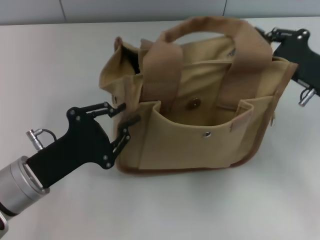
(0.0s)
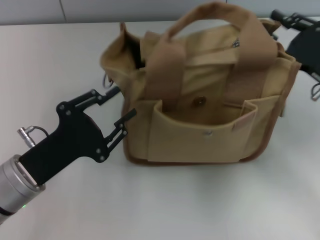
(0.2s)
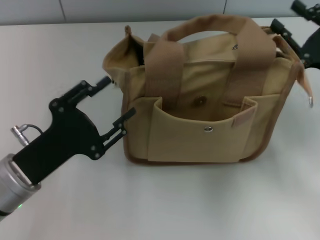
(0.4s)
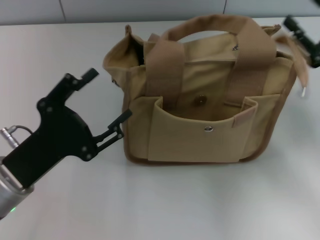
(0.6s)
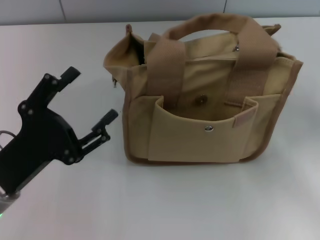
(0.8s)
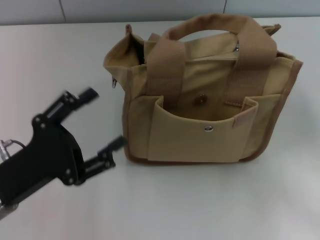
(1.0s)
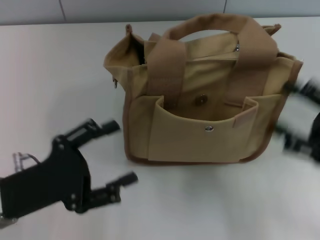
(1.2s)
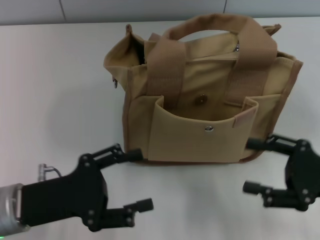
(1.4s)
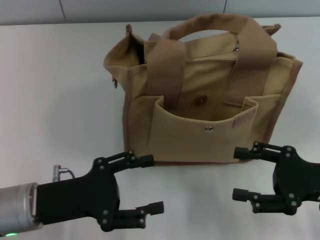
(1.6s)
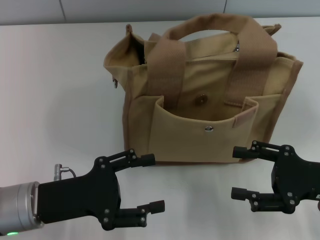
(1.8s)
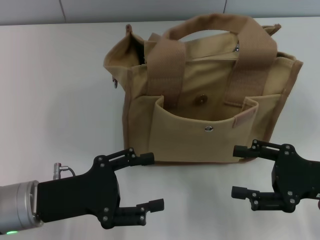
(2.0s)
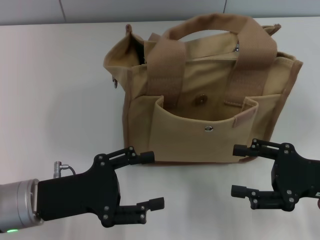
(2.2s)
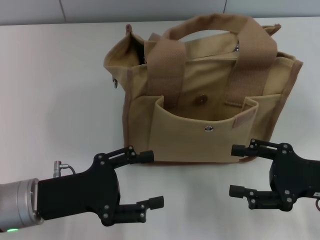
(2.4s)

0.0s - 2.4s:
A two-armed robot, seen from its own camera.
0.0s - 1.2s: The right gripper heads backward, covering roughly 10 cm, and opens up, while the left gripper opens its fingers.

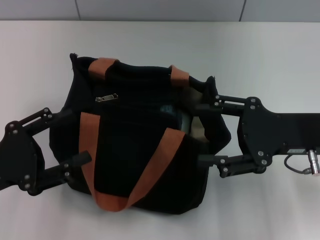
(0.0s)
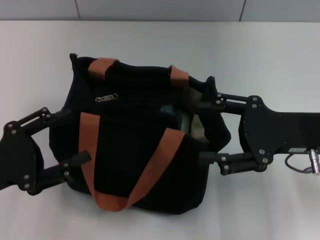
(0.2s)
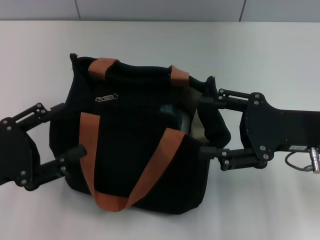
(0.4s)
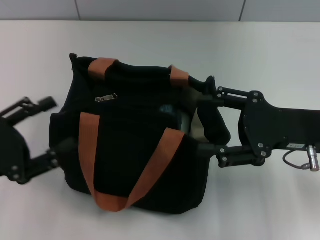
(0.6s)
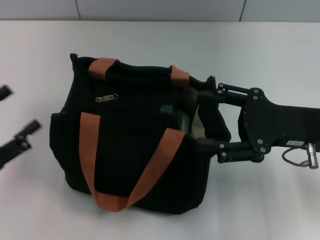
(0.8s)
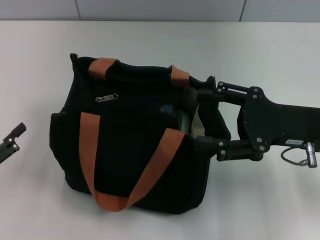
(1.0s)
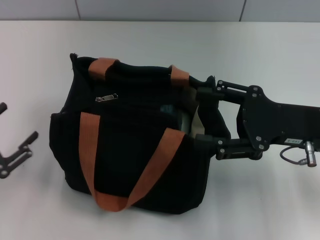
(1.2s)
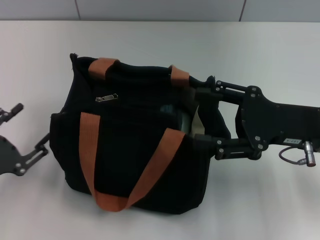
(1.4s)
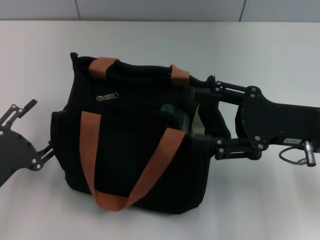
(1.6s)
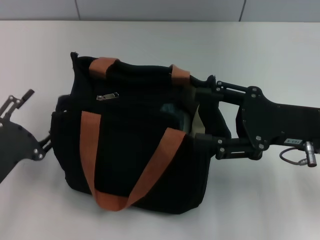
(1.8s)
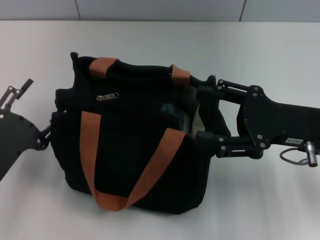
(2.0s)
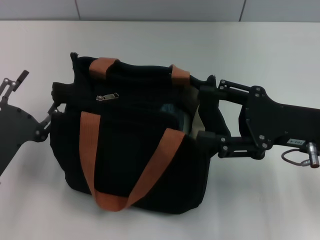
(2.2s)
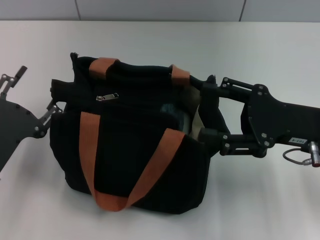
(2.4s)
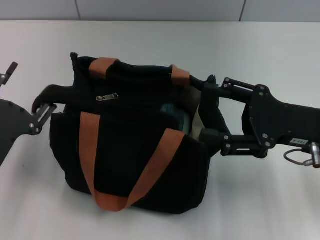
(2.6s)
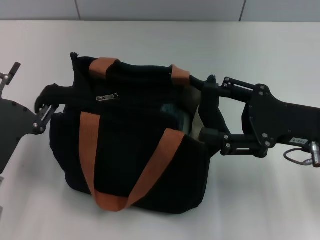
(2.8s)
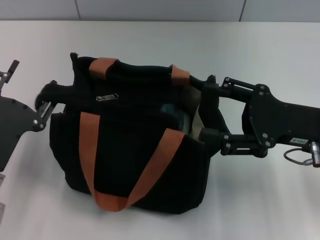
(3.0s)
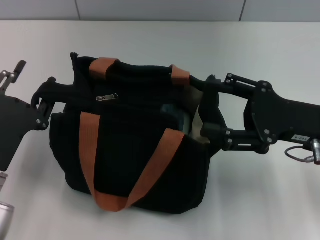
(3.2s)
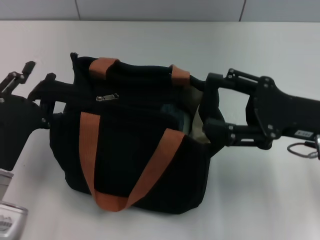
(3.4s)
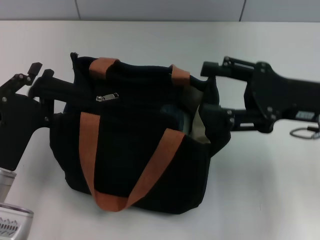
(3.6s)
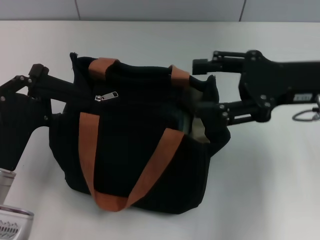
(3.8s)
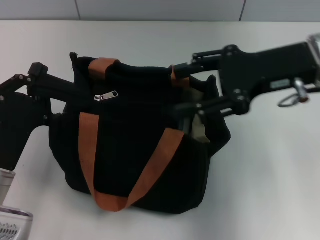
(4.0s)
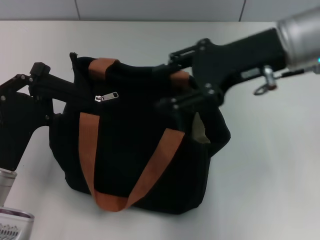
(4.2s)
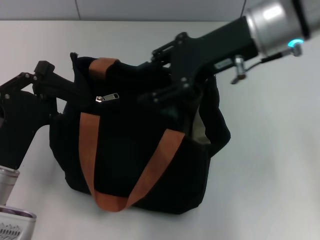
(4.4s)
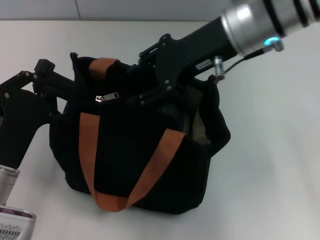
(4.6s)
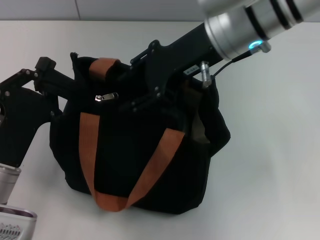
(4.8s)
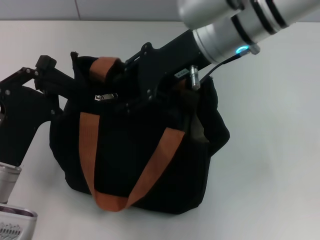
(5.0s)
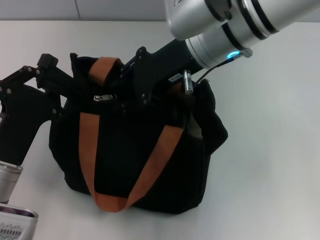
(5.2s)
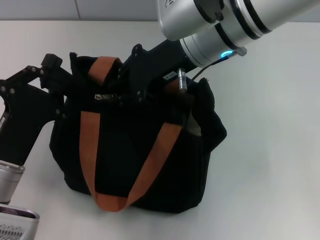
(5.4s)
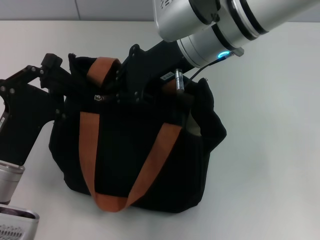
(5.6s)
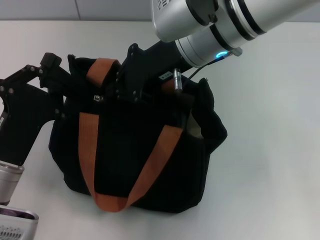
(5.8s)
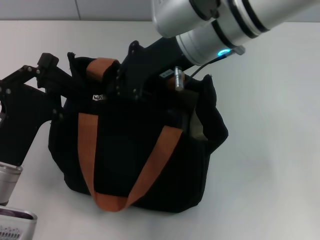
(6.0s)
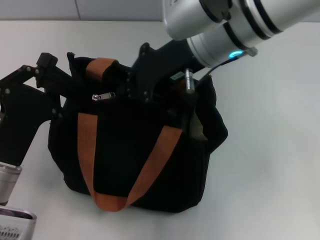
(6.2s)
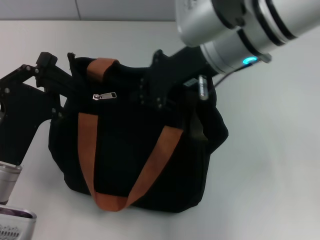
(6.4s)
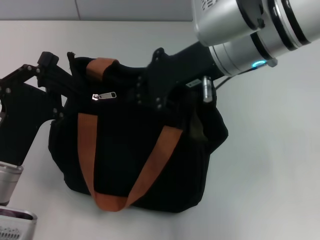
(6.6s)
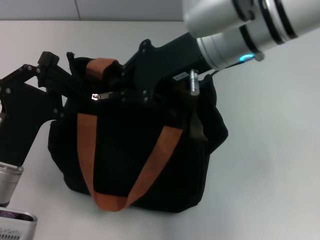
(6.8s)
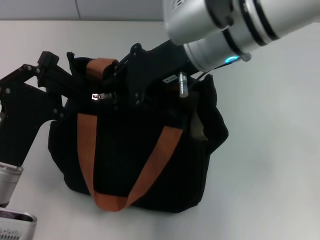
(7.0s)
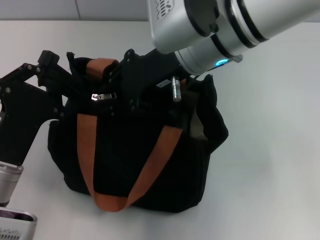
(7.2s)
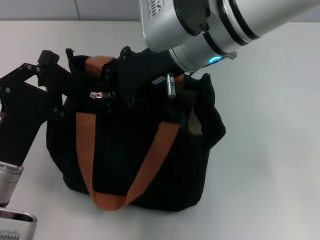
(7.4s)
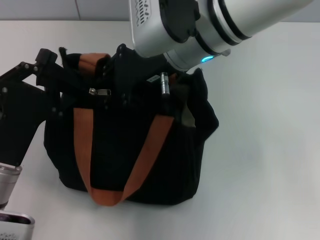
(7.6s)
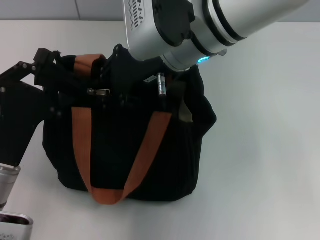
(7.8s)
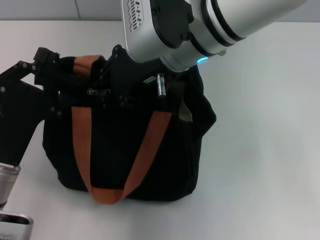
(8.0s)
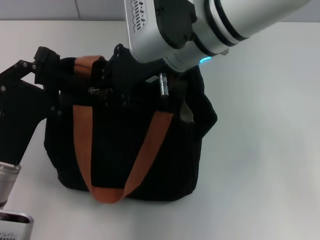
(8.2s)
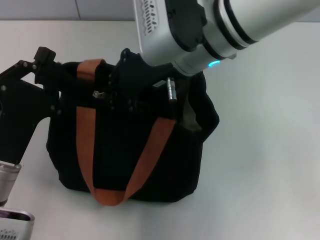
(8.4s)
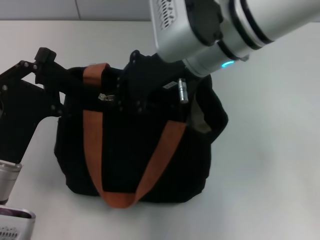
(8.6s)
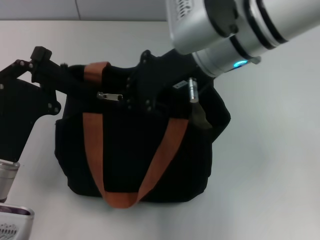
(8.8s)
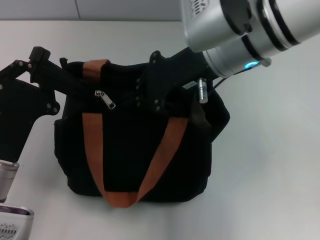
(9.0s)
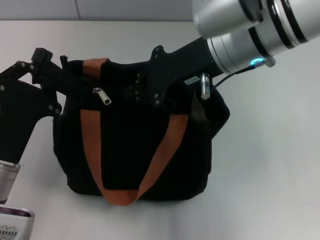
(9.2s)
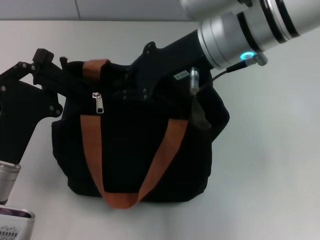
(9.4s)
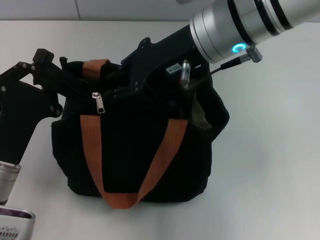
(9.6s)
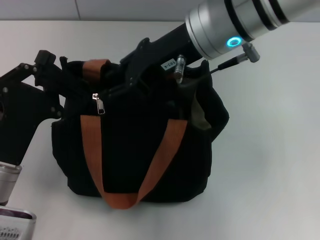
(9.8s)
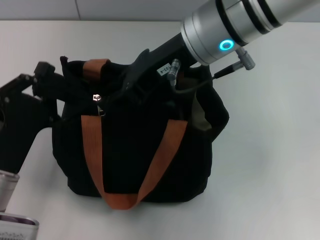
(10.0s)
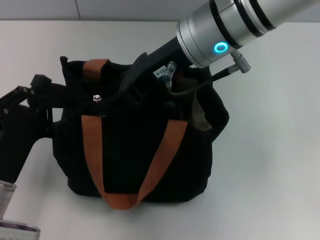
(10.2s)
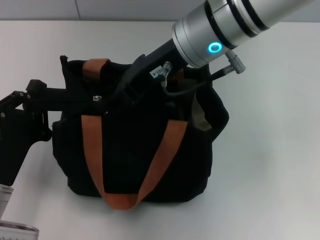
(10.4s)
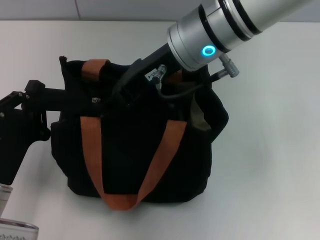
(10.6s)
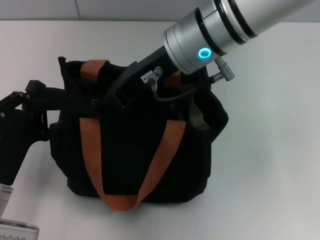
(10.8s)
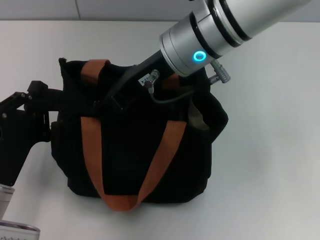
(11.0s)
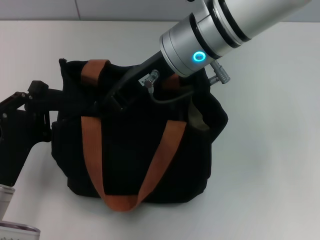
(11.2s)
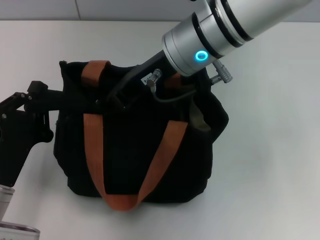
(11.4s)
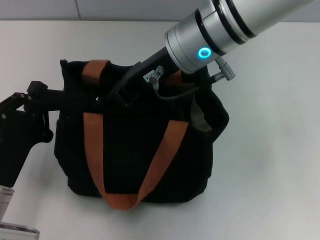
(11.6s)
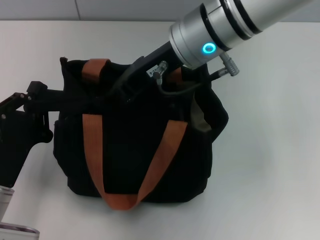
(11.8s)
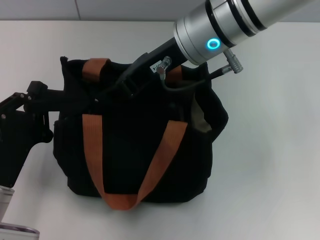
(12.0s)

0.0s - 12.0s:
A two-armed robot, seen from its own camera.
0.0s - 1.6s: The left gripper shifts approximately 5 cm downward.
1.6s - 3.0s: The grippers make only small movements.
3.0s - 4.4s: The left gripper closes. Meanwhile the right gripper shifts about 20 cm upward, to the left and forward.
4.4s - 6.0s: The right gripper heads to the left, covering about 5 cm, and closes its fingers.
6.0s - 7.6s: The right gripper opens its fingers.
9.0s - 10.4s: The right gripper opens its fingers.
10.4s - 12.0s: The grippers make only small movements.

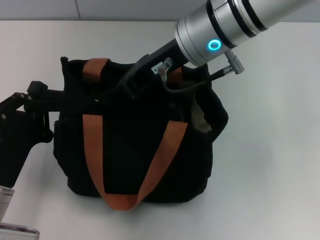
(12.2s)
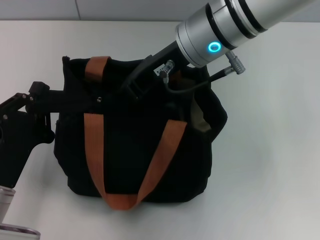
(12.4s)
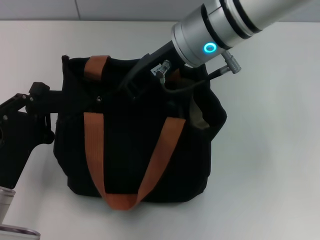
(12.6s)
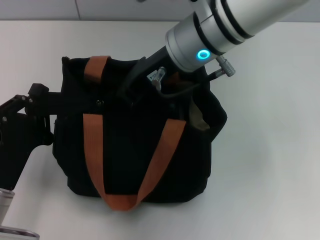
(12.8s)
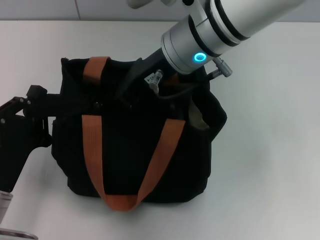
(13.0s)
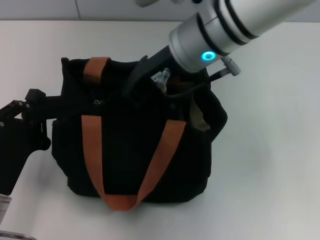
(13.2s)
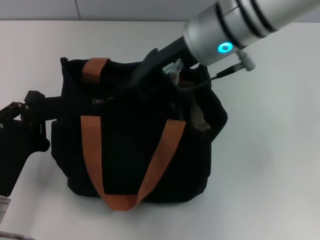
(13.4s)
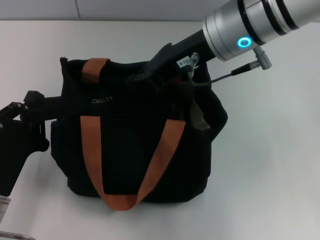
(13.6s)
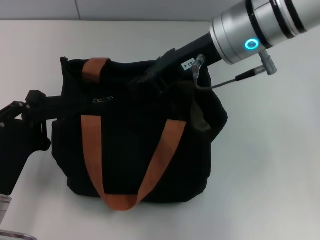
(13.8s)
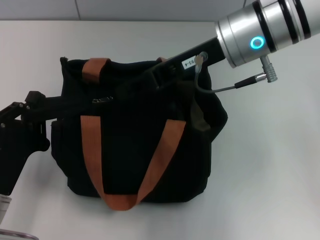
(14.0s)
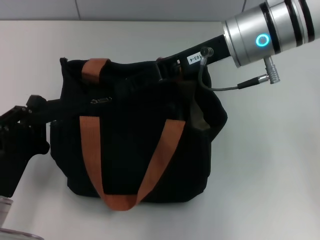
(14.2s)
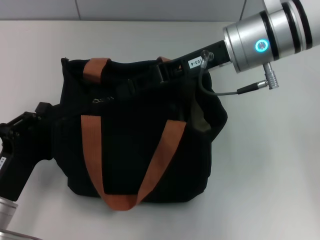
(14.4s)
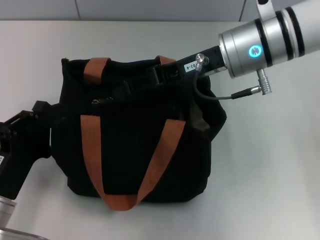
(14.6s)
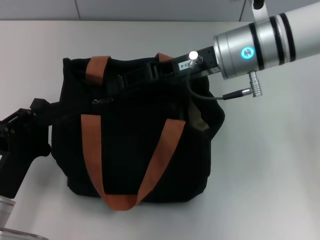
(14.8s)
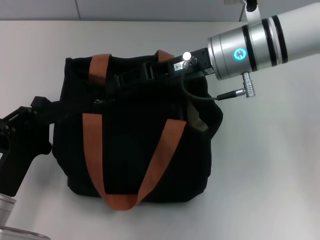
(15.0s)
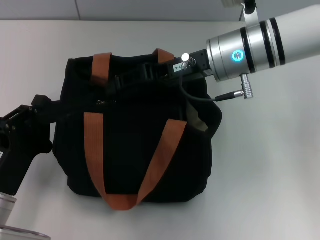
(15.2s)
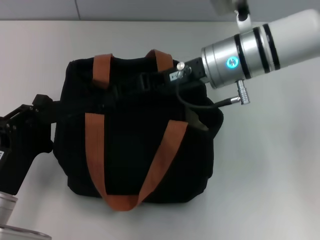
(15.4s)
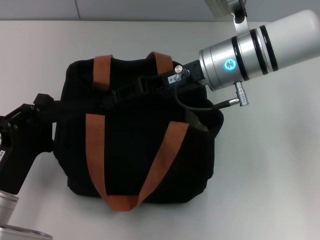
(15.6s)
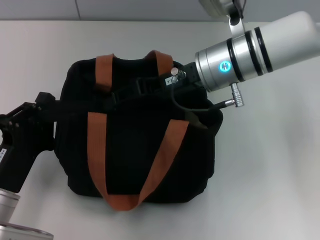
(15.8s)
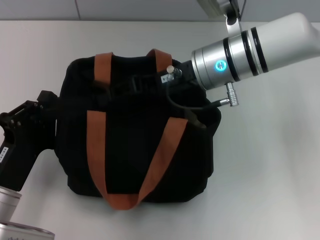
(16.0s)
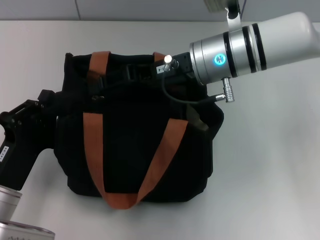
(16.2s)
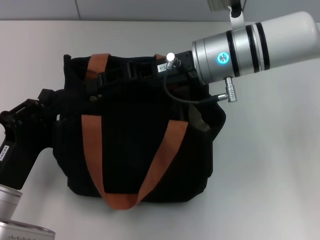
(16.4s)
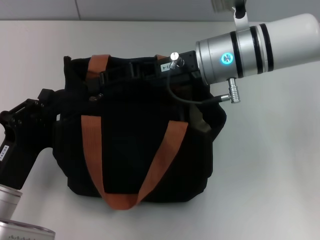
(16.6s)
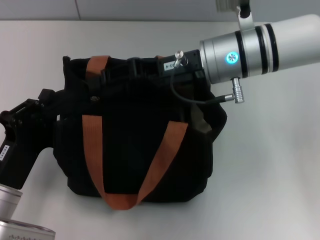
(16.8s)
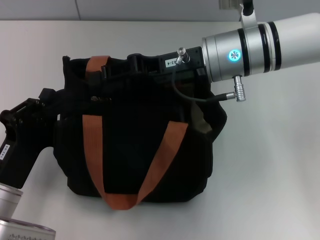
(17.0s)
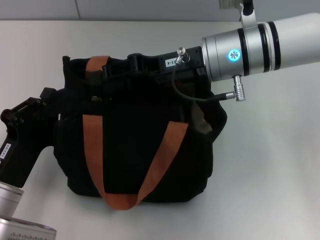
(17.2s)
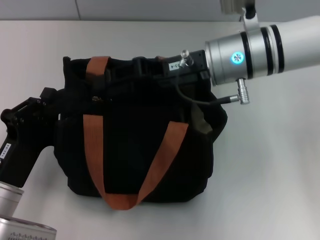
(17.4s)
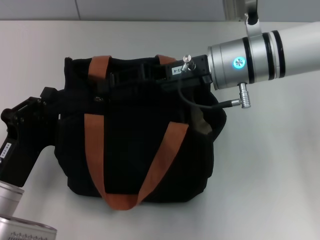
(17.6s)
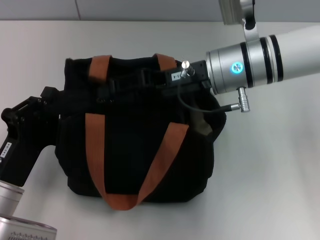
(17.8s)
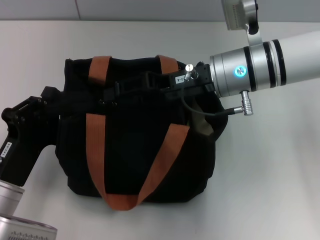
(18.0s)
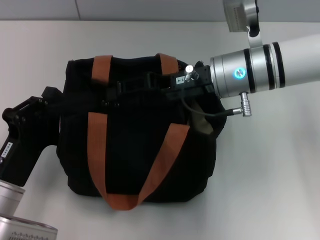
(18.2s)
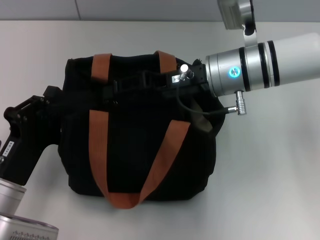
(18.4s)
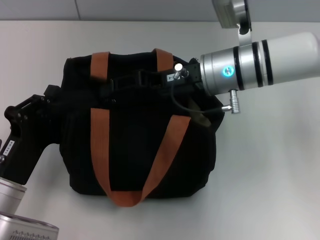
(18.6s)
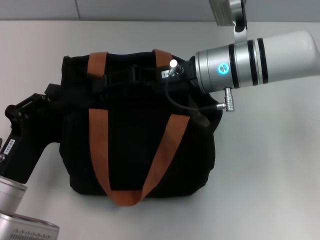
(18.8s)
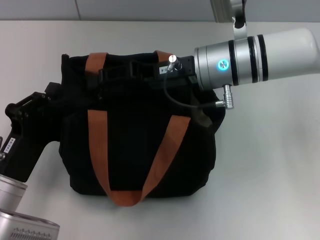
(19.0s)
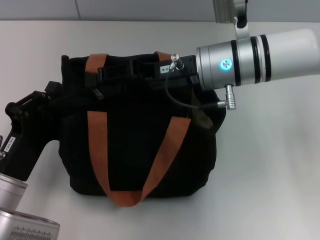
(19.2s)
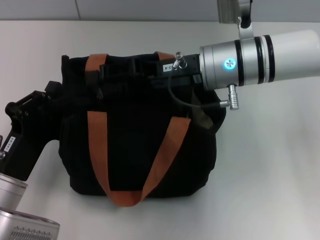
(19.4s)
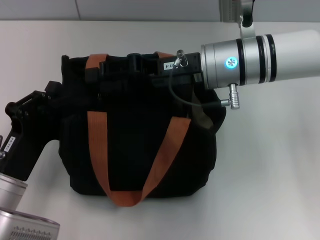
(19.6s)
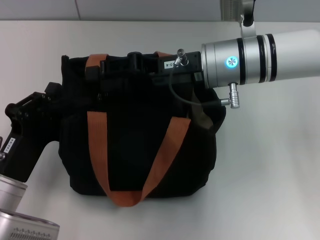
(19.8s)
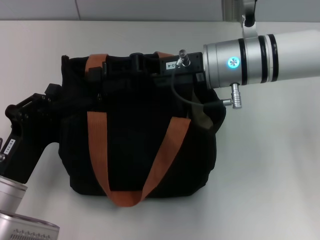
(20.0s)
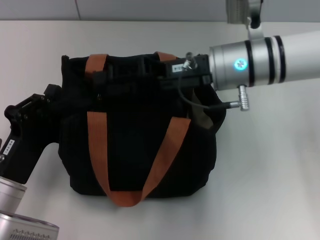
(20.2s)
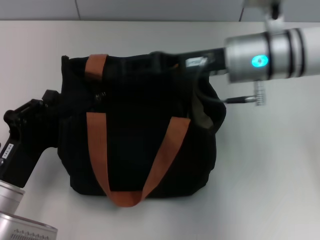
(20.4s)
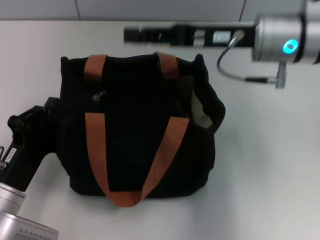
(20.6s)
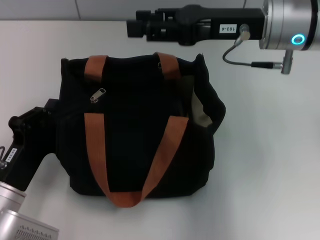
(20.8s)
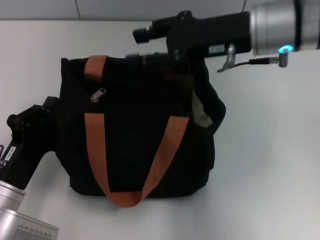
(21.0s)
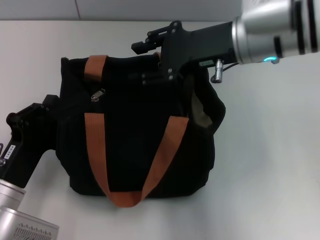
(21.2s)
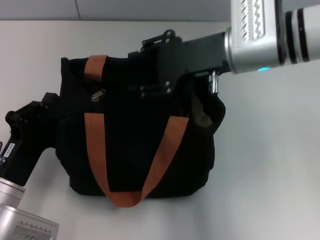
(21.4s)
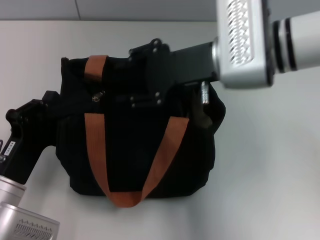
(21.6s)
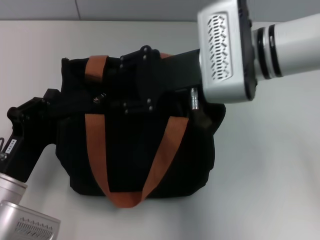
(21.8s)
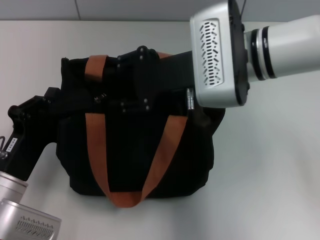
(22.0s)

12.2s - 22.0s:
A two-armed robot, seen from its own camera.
12.2s - 13.6s: There are only small adjustments of the grippers.
13.6s - 15.0s: The right gripper moves downward, about 5 cm, and opens its fingers.
15.0s - 19.2s: The grippers move only a little.
19.2s - 20.6s: The right gripper is displaced to the right by about 5 cm.
20.6s - 22.0s: The right gripper is displaced to the left by some 5 cm.
